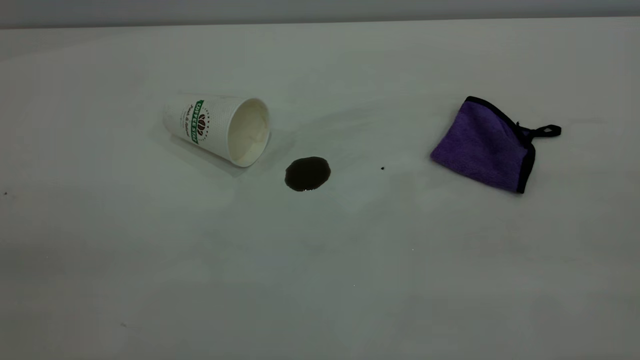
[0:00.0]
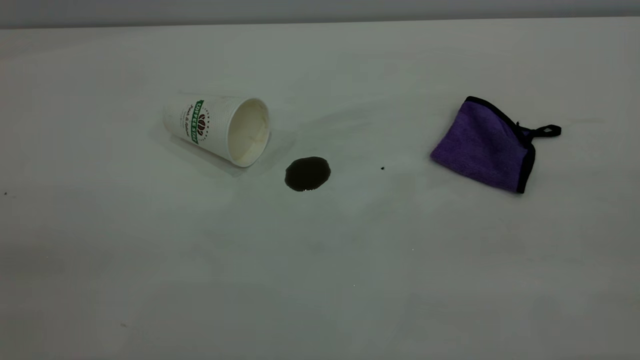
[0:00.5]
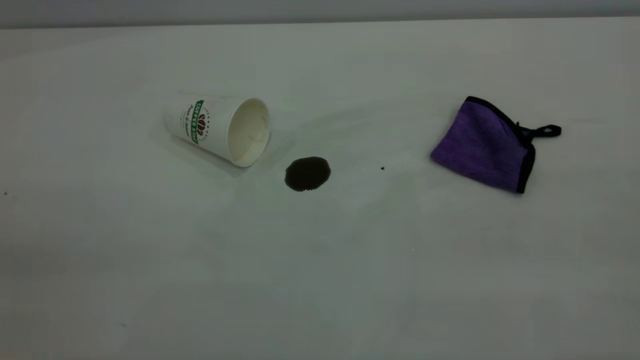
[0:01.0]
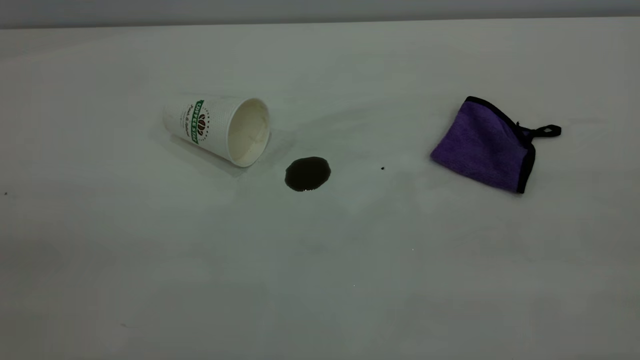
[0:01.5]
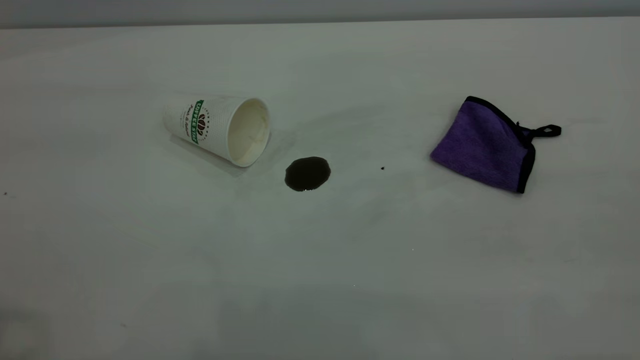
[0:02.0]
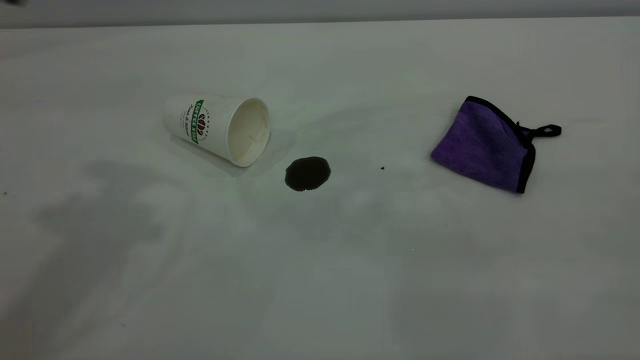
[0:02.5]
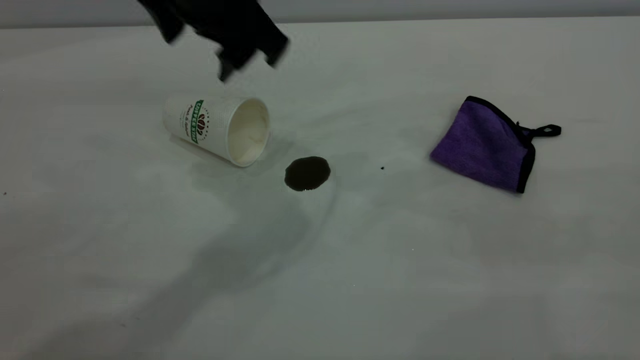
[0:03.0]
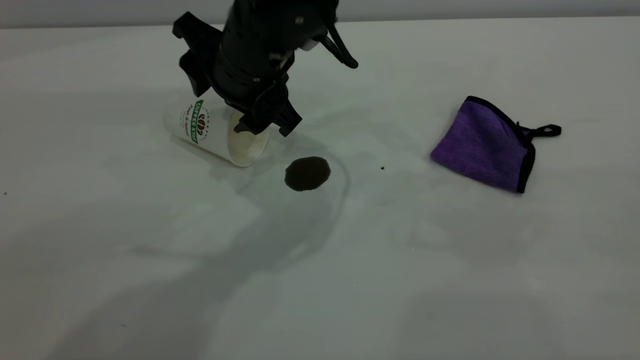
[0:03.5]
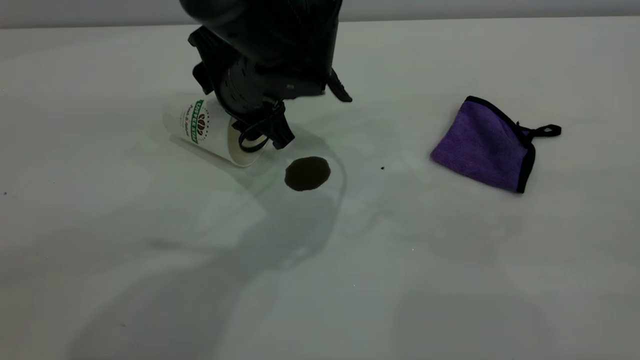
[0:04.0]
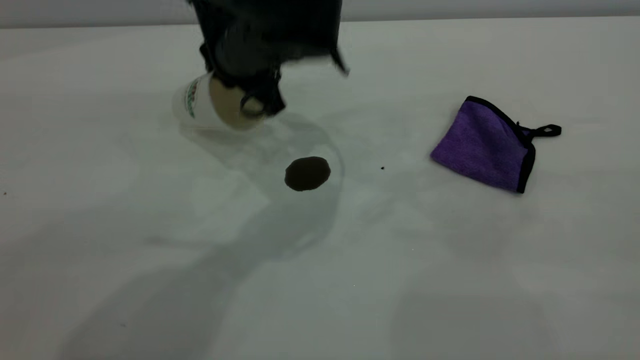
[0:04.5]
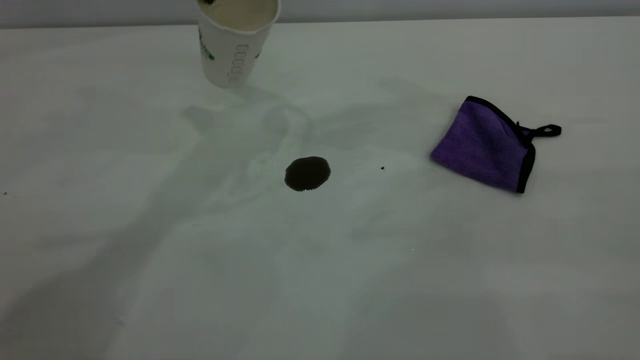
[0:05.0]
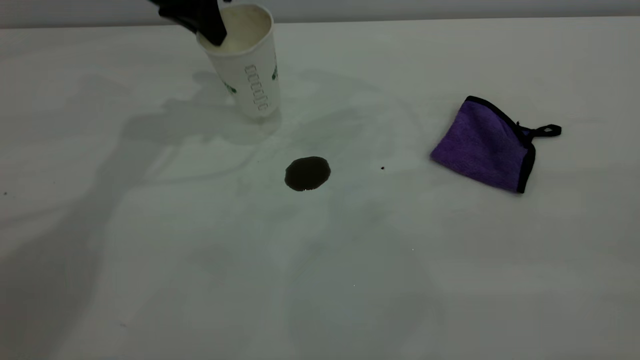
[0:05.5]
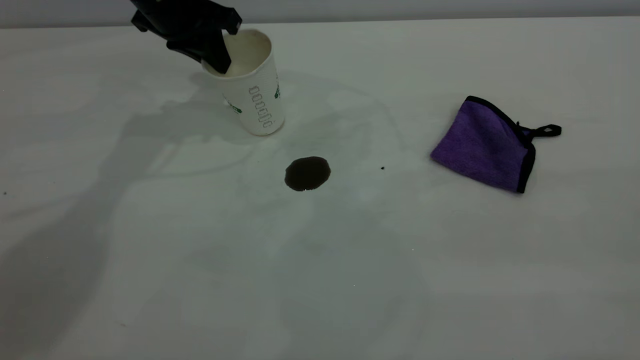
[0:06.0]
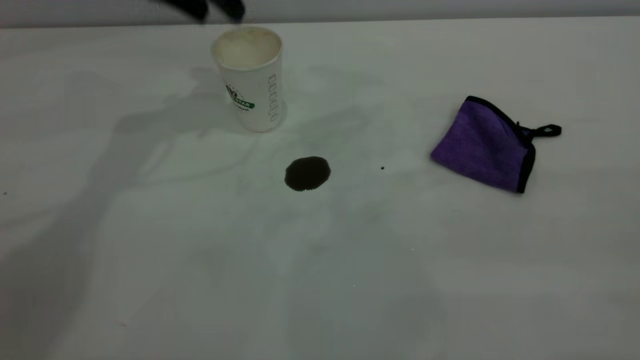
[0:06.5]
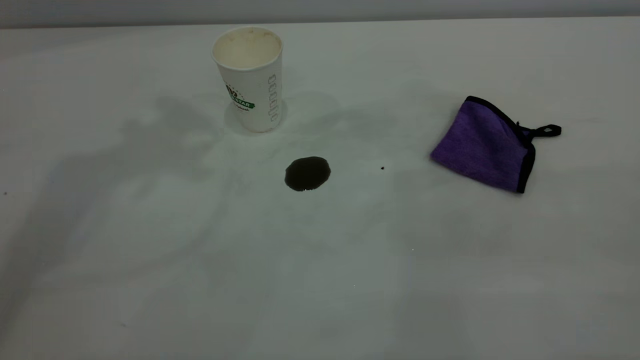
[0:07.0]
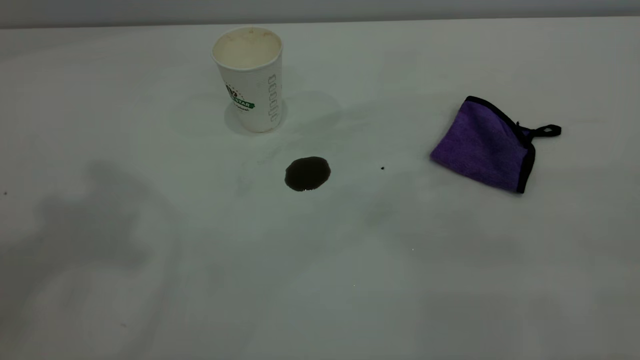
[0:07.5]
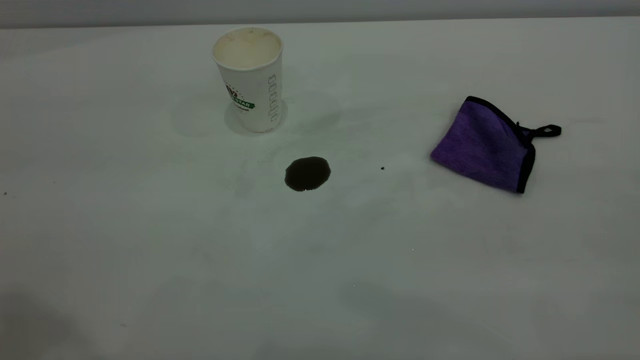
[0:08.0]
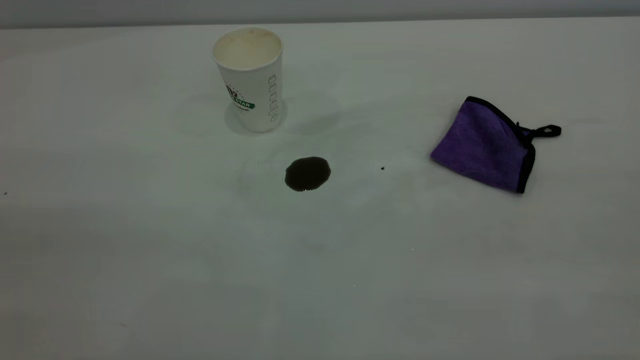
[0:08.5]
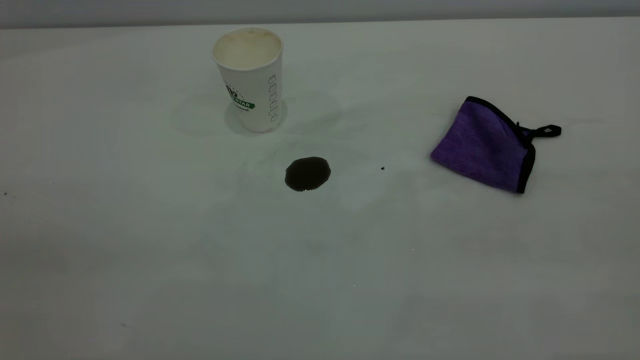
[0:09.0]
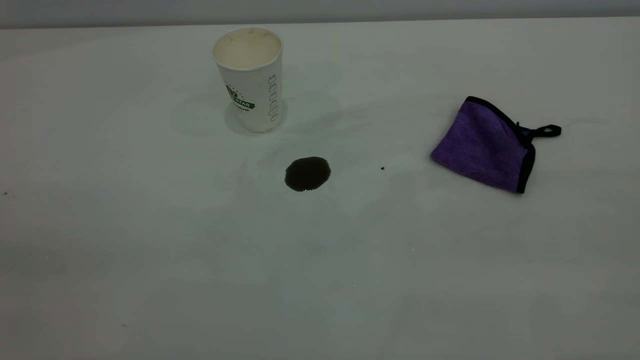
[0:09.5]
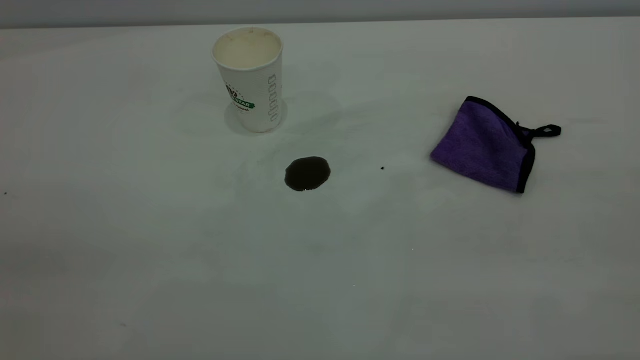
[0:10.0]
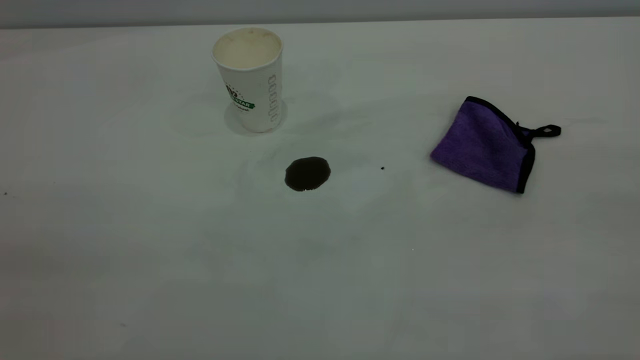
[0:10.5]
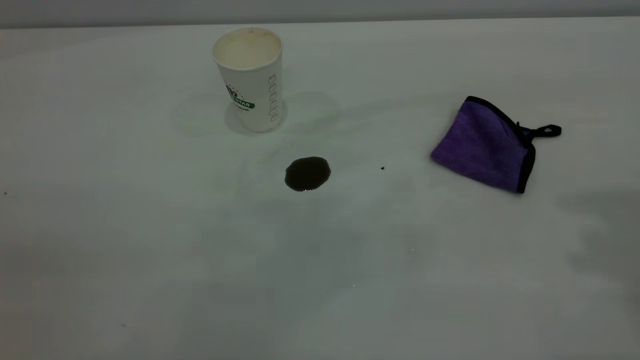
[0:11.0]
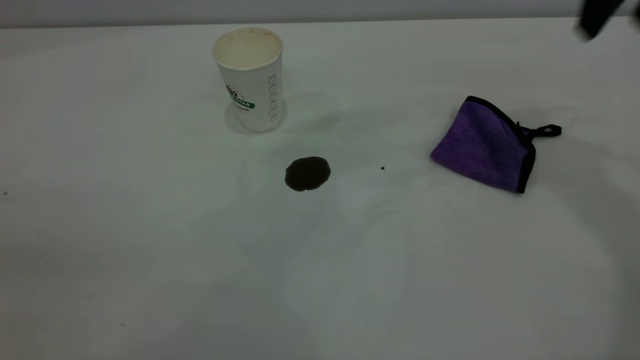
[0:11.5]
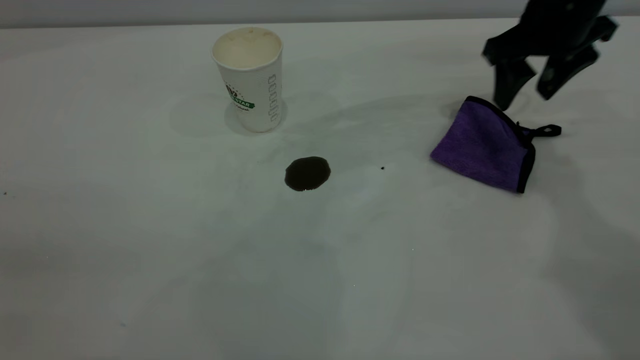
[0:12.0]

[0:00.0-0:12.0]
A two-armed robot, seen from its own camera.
Task of the whole recording: the left gripper pick up the fallen cup and place it upright, the right gripper grasp the purple rag and wipe the coffee stain on the table, the right gripper put the purple rag back in its original position.
Step, 0:00.0 to 0:06.0: Stand the paper cup upright.
0:02.0 to 0:04.0: The left gripper is displaced downward, to the right and forward by about 50 cm.
0:04.0 to 0:06.0: The left gripper travels to the left, forward and upward by about 20 cm, and closes its fingers.
0:06.0 to 0:08.0: The left gripper heads backward and upward, covering approximately 40 cm, and opens, then closes once more.
0:10.0 to 0:12.0: The right gripper shifts some 50 cm forward and downward.

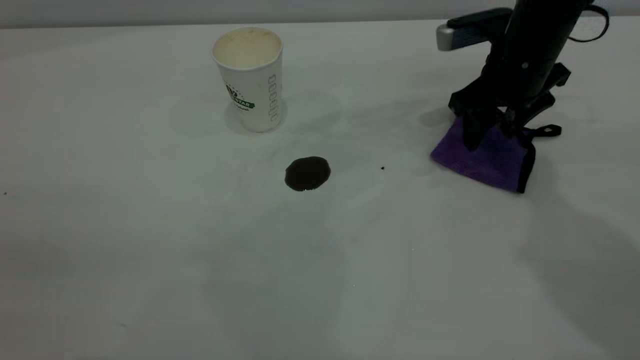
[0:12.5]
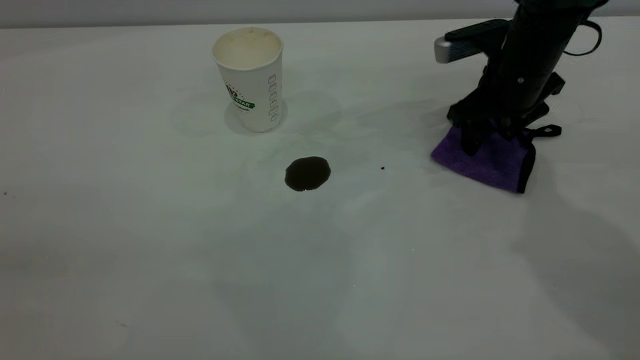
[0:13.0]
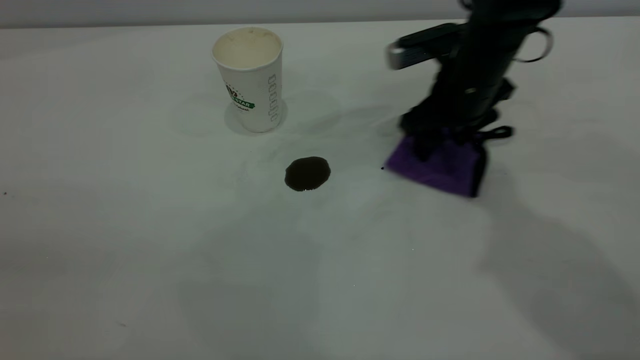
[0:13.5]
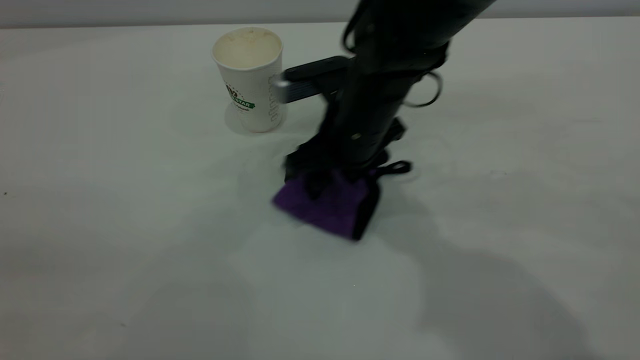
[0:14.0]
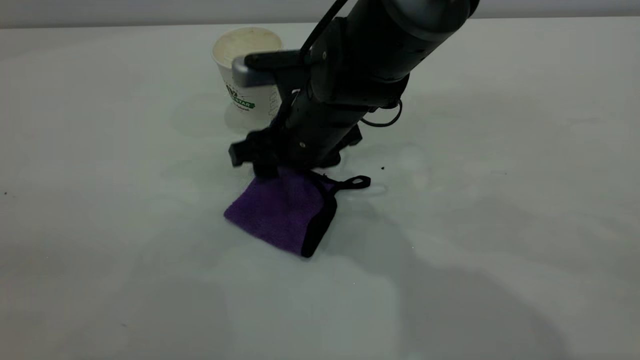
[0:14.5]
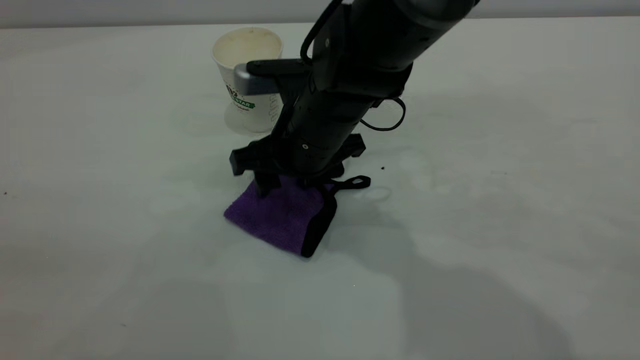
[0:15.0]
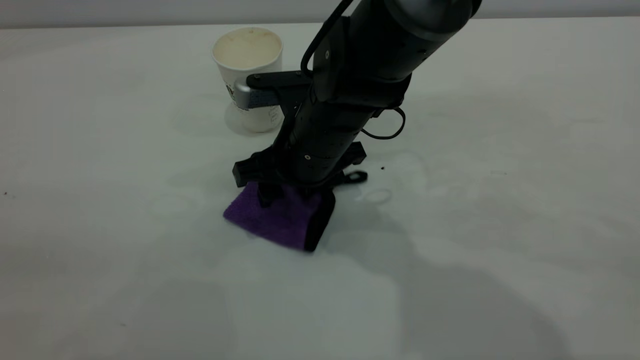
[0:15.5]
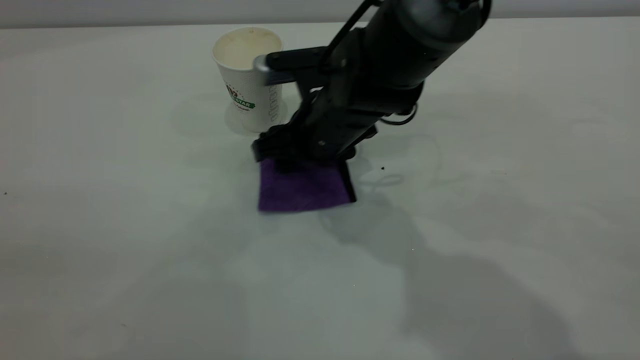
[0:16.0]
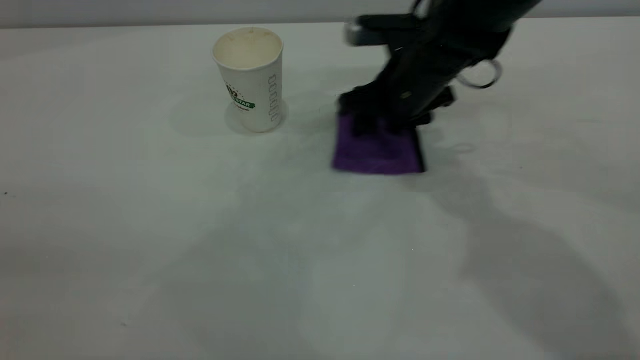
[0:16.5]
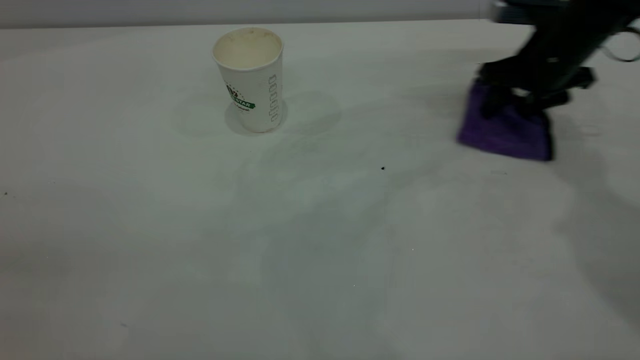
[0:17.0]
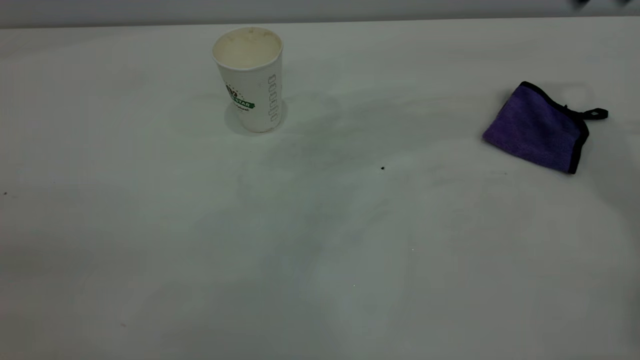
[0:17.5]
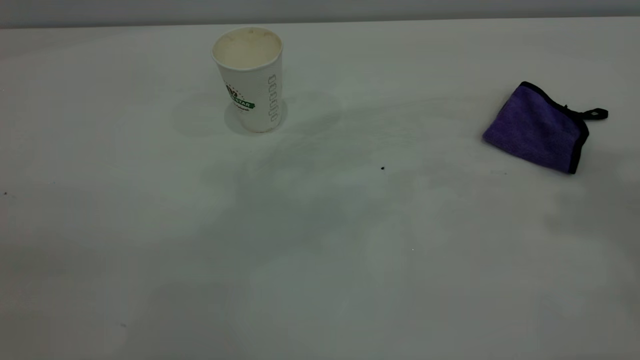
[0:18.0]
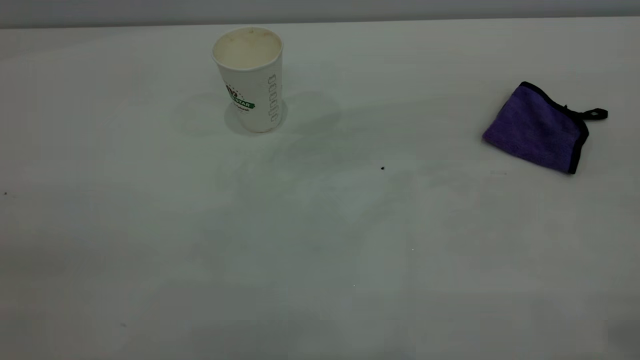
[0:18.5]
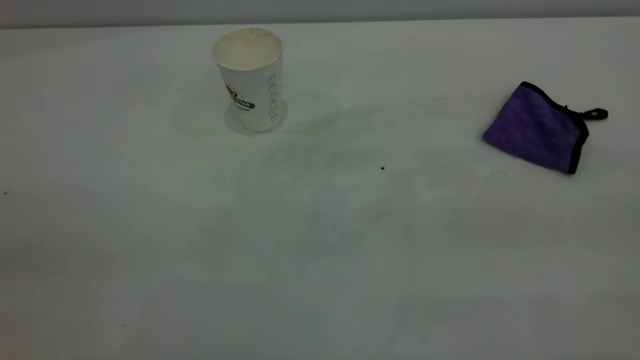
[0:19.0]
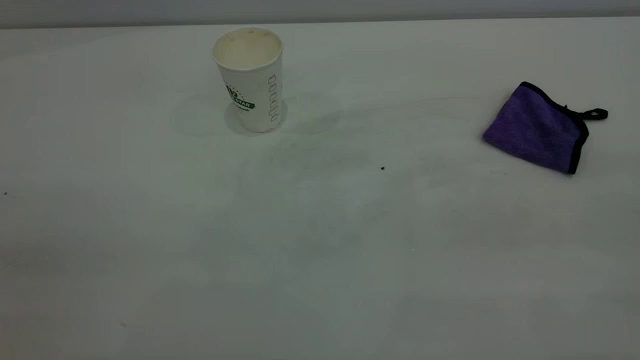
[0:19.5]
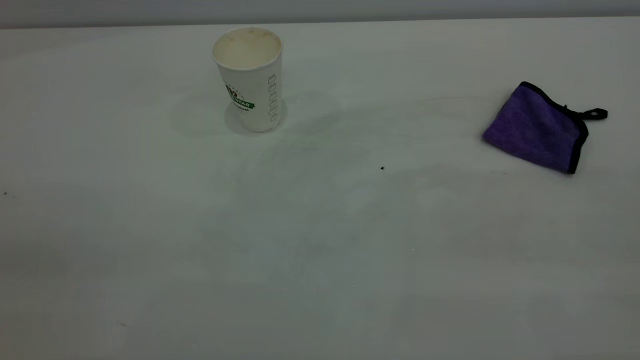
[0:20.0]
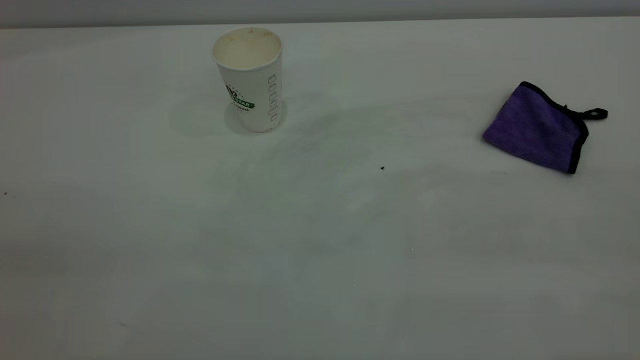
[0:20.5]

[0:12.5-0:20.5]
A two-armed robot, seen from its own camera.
Task of the whole recording: the left gripper pick up the fallen cup and place it upright, the right gripper grasp the purple rag and wipe the coffee stain on the table, the right gripper put the purple rag back in its original position.
Step, 0:12.5 to 0:17.0: Wipe the stains off the table with a rag.
0:12.5 to 0:14.5: The right gripper shifts some 20 cm to the left.
0:14.5 to 0:16.5: The right gripper heads to the right and forward, covering about 15 cm.
0:16.5 to 0:18.5: The right gripper shifts some 50 cm upward, backward and to the right.
